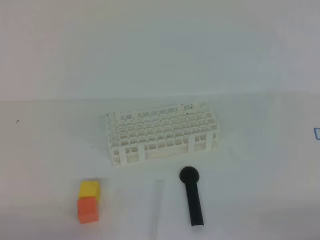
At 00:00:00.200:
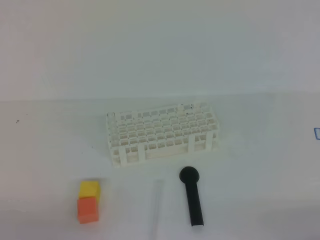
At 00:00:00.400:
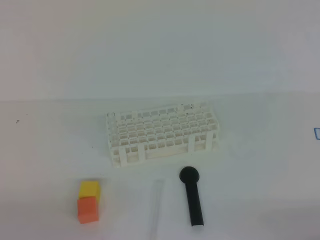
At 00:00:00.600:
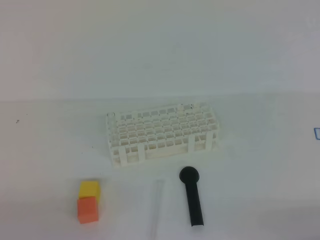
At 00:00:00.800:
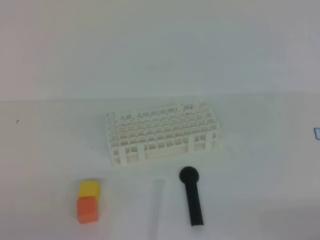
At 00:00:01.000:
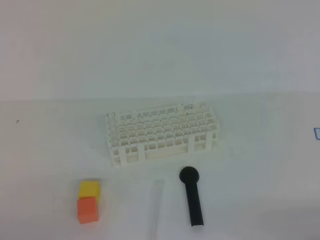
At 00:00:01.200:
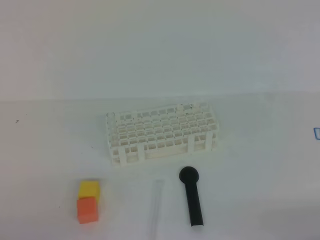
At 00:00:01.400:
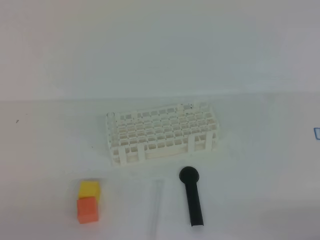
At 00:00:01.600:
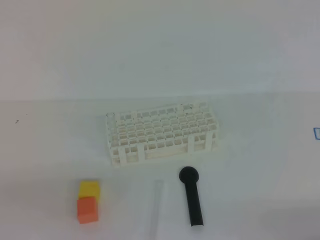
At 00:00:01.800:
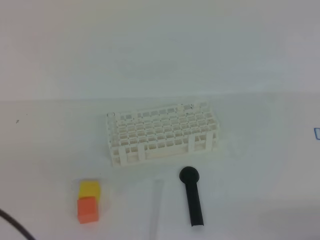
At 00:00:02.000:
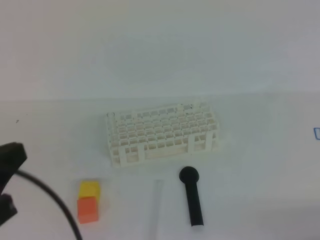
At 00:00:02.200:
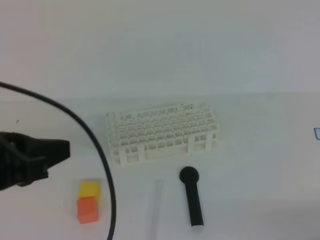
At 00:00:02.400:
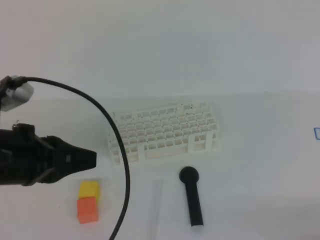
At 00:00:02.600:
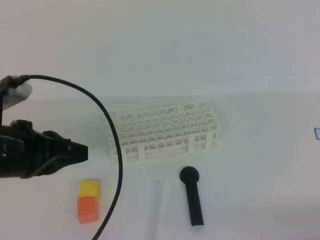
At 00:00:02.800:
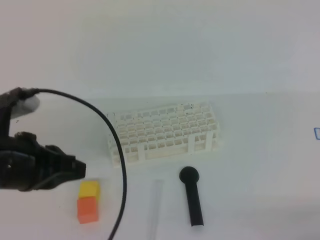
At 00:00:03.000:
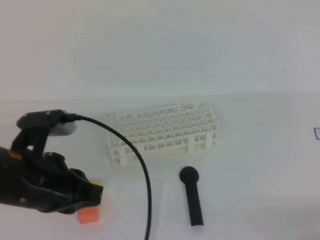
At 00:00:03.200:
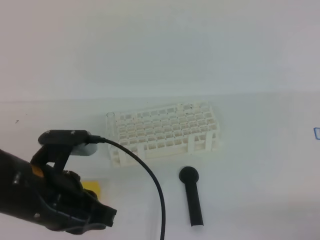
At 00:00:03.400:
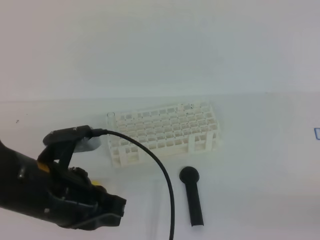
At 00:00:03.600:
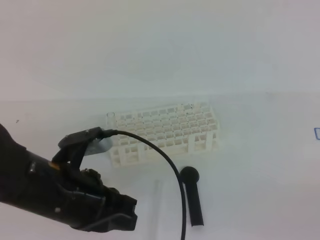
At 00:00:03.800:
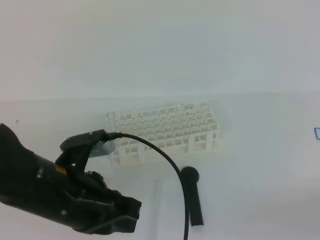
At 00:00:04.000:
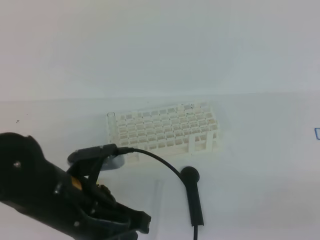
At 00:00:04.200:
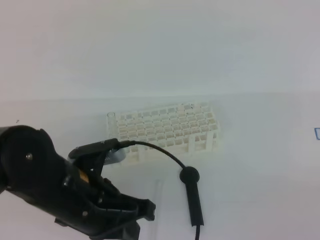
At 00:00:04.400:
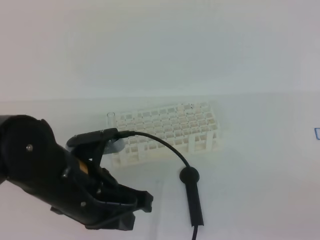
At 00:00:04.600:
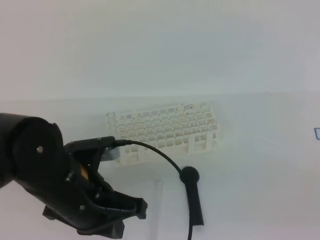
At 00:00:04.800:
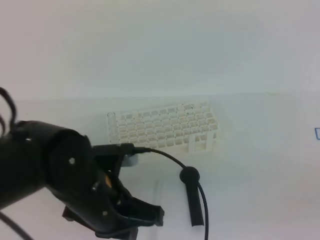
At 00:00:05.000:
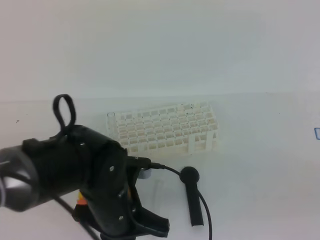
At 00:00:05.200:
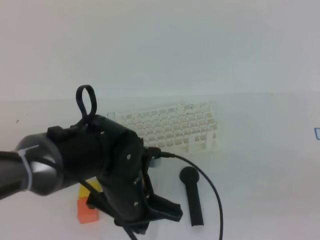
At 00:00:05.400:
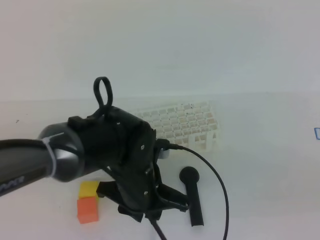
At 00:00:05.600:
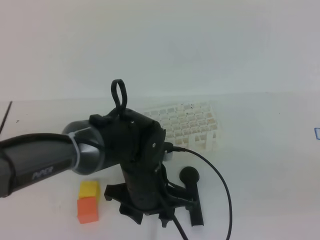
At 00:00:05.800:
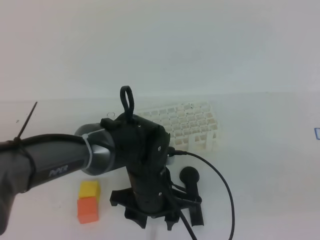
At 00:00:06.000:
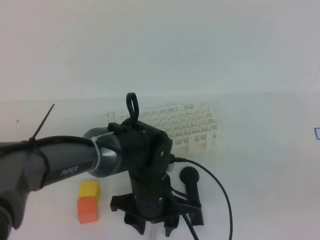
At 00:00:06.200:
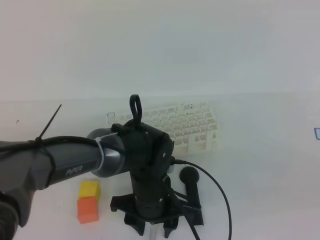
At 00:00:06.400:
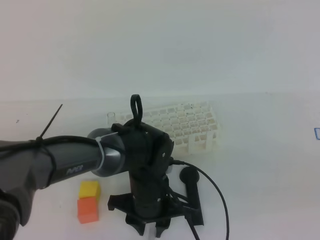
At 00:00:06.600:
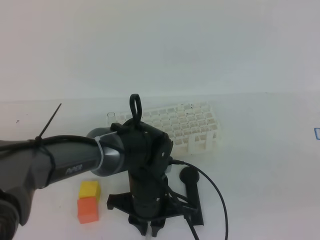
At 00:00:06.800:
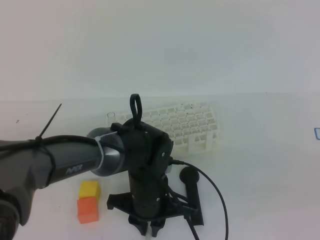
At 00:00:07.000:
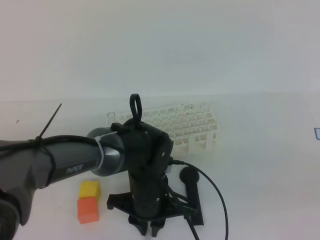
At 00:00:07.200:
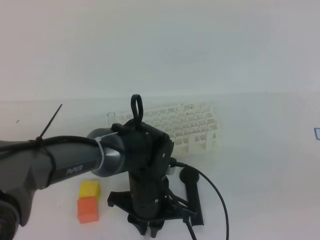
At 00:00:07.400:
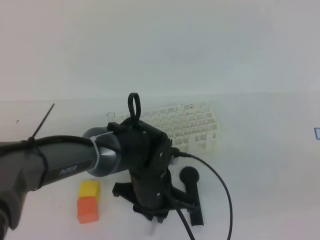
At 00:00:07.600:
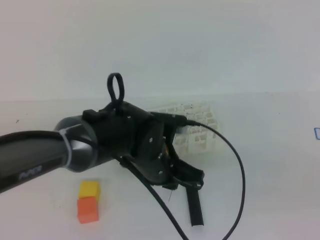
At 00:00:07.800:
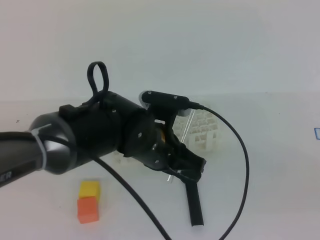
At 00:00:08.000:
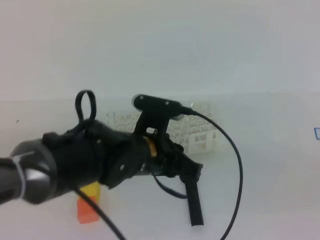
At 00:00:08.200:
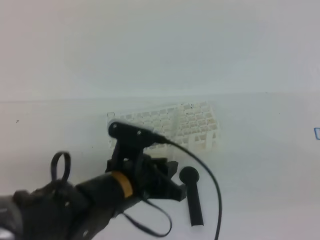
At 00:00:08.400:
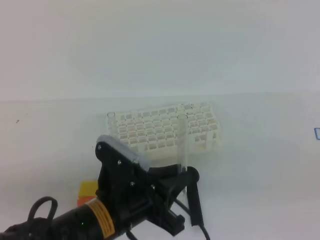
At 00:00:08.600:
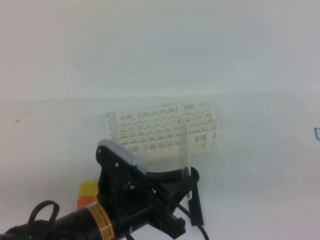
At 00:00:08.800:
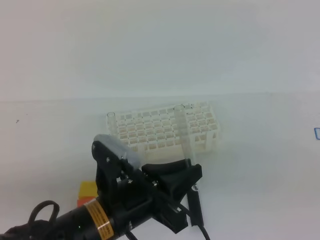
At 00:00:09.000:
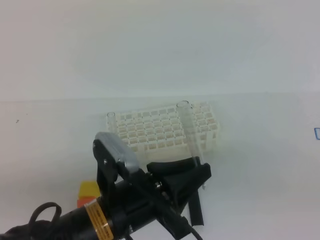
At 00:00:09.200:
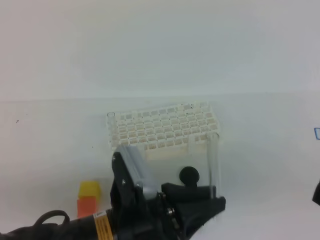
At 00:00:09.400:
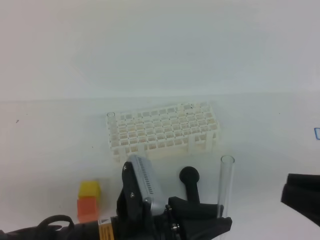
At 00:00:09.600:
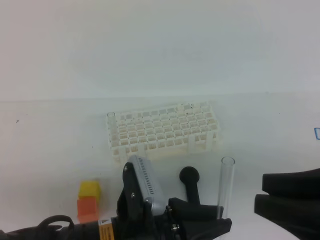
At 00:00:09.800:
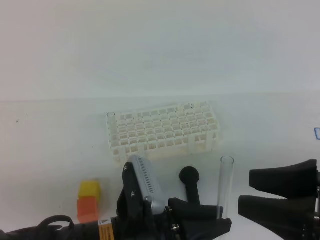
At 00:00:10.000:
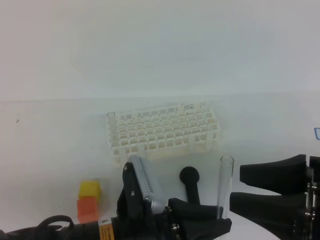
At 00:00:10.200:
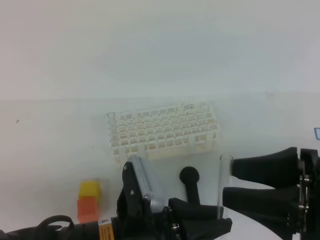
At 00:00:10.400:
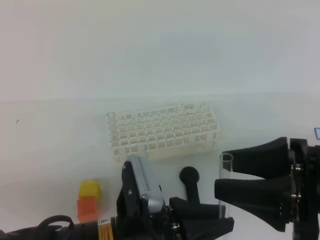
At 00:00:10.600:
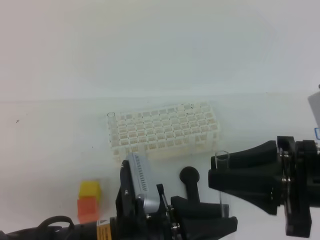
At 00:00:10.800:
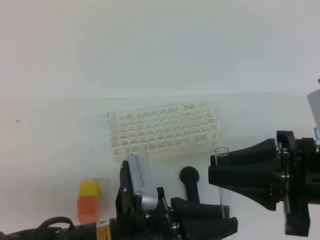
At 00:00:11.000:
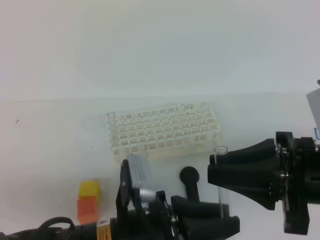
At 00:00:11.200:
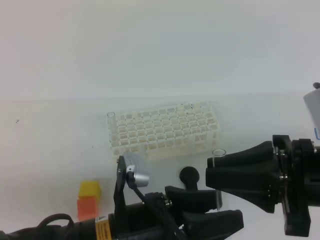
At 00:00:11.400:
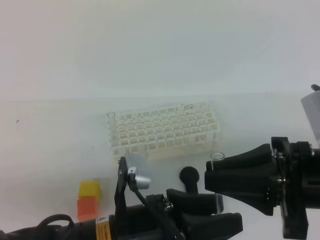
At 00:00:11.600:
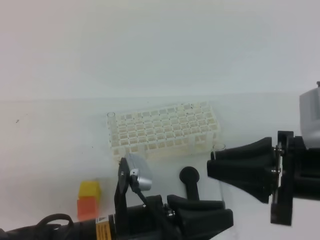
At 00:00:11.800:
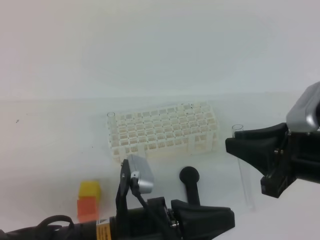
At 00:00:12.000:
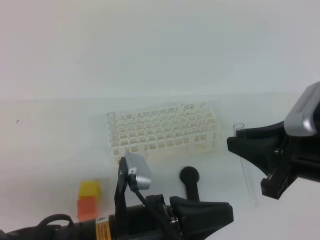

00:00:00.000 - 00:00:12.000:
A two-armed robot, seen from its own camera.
00:00:01.600 - 00:00:03.000: The left gripper shifts about 15 cm forward and to the right.
00:00:03.000 - 00:00:04.400: The left gripper heads to the right, covering approximately 5 cm; the right gripper is displaced upward by about 15 cm.
00:00:04.400 - 00:00:06.000: The right gripper is displaced forward by some 5 cm, while the left gripper shifts some 15 cm downward, to the right and forward, and opens.
00:00:06.000 - 00:00:07.600: The left gripper closes up.
00:00:07.600 - 00:00:09.000: The left gripper heads backward, covering roughly 10 cm.
00:00:09.000 - 00:00:10.400: The right gripper heads forward and to the left, covering approximately 10 cm, and opens.
00:00:10.400 - 00:00:12.000: The left gripper opens and closes again; the right gripper moves some 5 cm, and closes its fingers.

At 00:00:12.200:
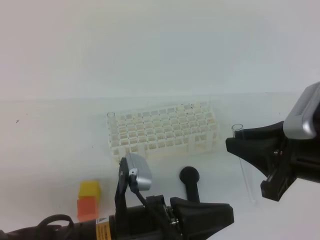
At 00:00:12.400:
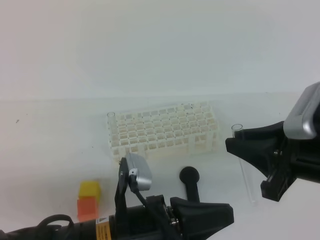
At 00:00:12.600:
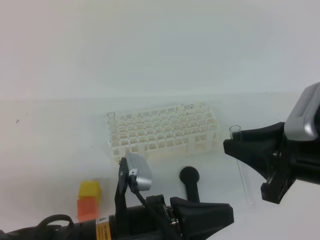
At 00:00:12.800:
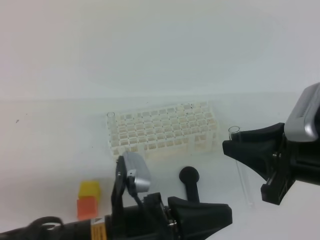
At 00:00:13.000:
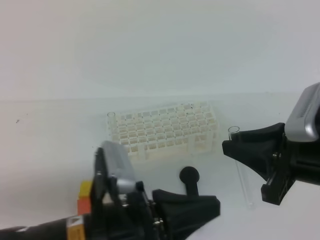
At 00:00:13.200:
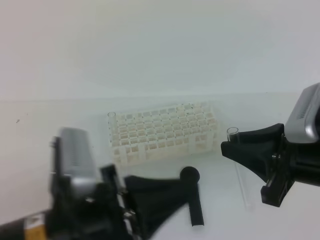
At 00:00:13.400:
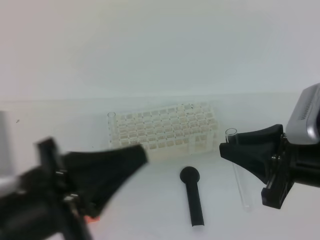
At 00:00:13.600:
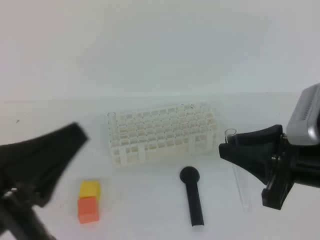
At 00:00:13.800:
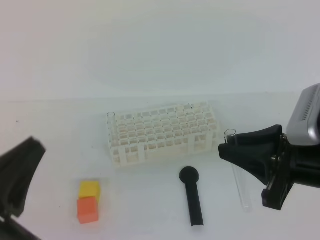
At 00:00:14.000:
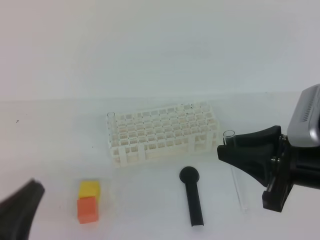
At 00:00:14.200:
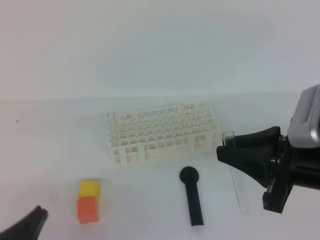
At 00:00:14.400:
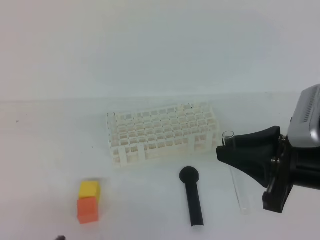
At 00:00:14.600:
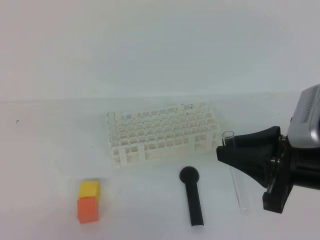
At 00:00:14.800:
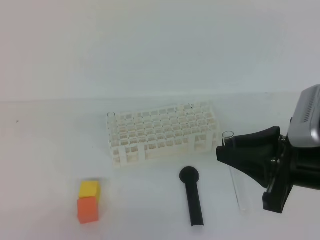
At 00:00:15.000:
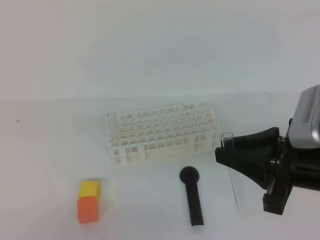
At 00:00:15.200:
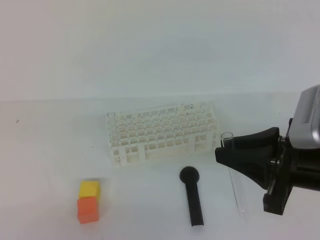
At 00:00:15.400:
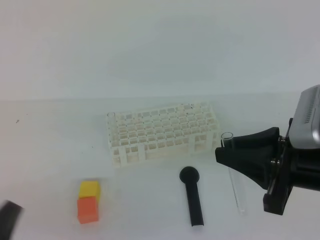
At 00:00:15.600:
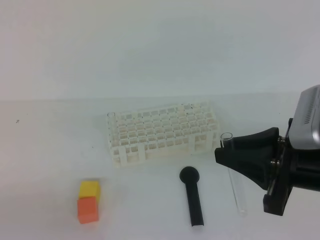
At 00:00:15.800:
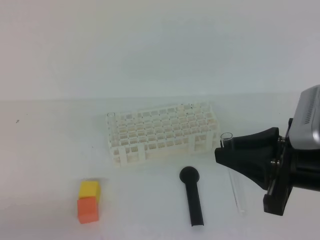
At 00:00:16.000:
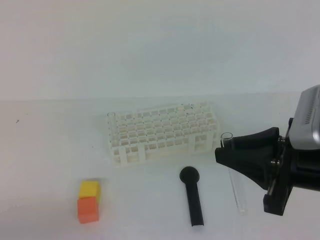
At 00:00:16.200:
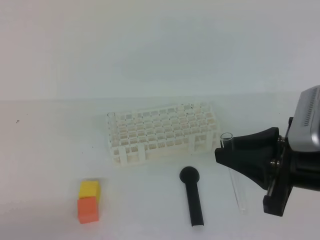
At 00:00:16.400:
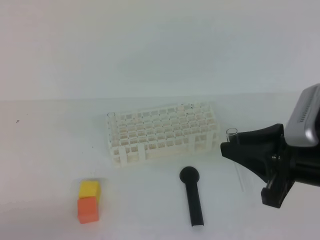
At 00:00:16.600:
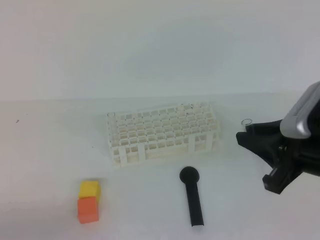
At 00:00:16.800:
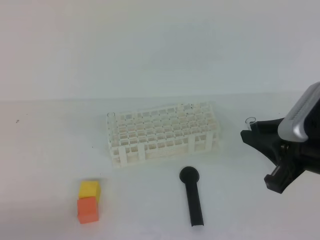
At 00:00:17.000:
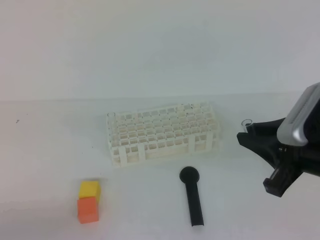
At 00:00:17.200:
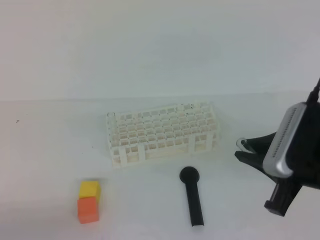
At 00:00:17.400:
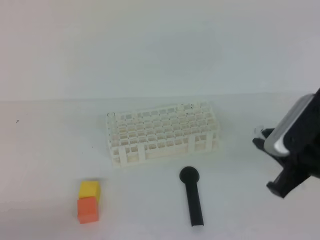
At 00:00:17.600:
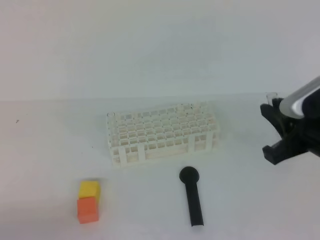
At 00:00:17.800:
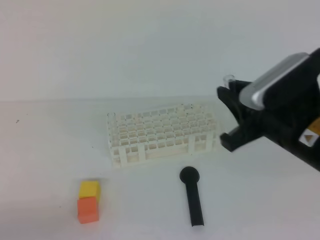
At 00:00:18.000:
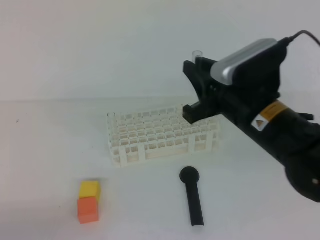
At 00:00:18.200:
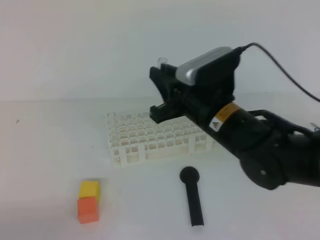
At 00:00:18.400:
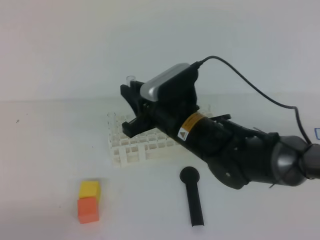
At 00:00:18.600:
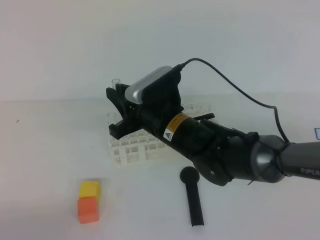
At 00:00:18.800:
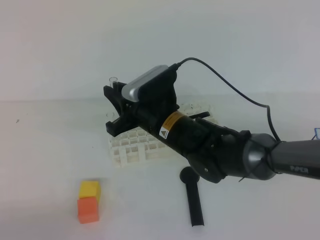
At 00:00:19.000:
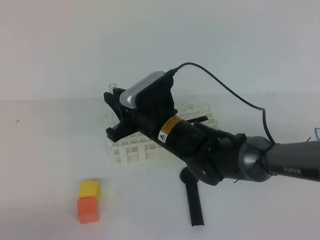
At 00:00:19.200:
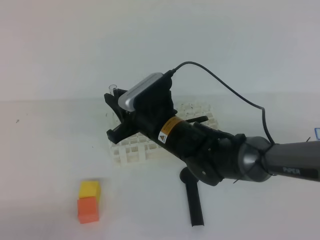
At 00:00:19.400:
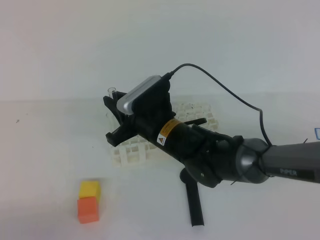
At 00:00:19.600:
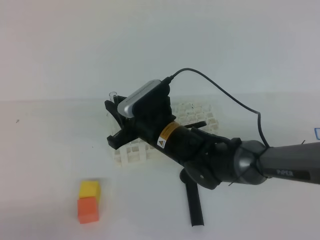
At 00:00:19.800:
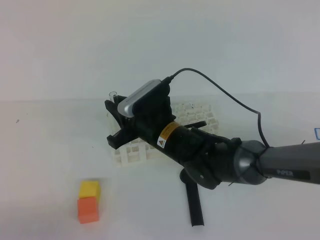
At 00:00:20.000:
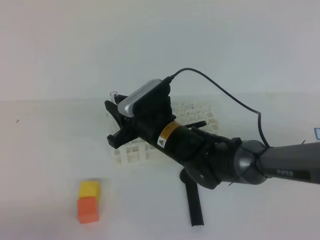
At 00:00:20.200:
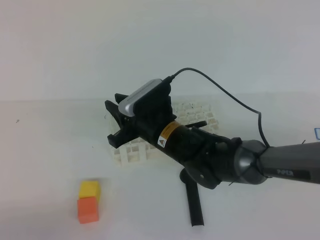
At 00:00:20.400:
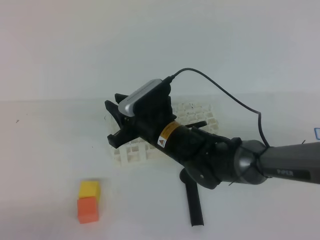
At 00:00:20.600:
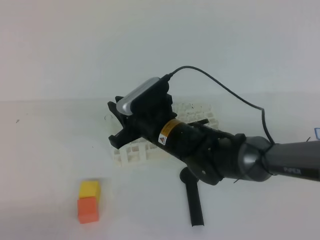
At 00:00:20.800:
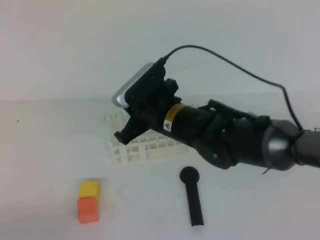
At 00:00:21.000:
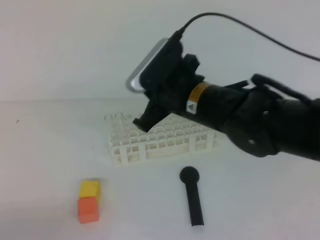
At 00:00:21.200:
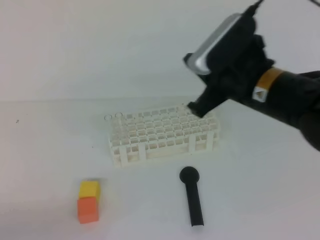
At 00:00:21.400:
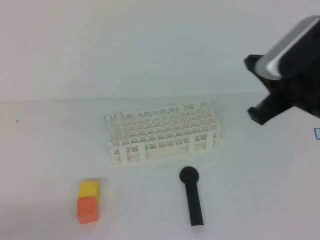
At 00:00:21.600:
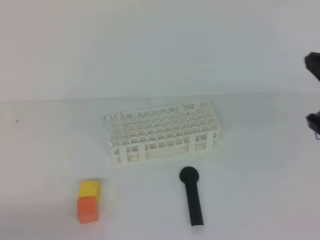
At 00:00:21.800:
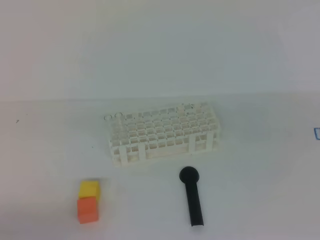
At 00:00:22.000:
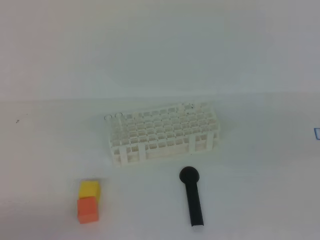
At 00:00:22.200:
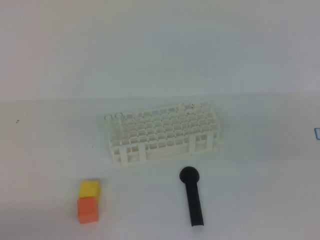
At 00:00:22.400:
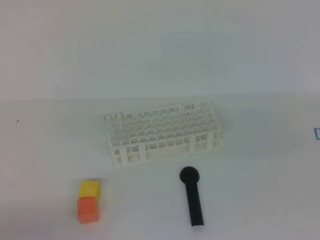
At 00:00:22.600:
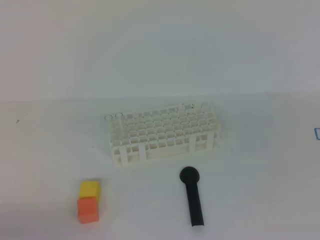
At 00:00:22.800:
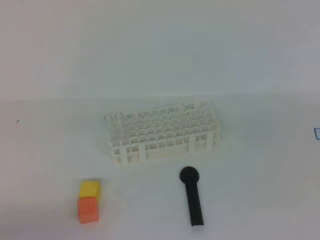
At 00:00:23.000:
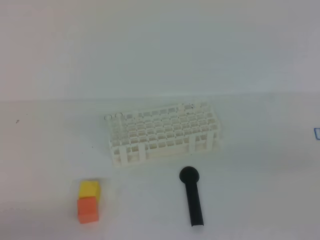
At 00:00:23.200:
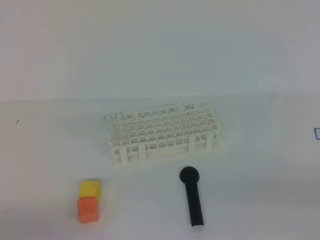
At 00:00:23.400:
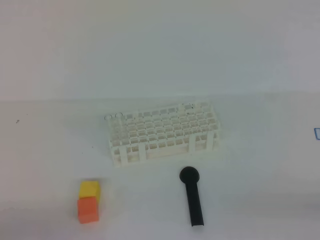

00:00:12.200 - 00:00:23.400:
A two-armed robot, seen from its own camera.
00:00:12.200 - 00:00:13.800: The left gripper shifts some 15 cm to the left and upward.
00:00:13.800 - 00:00:15.400: The left gripper shifts about 5 cm downward.
00:00:15.400 - 00:00:17.000: The left gripper shifts some 5 cm to the left.
00:00:17.000 - 00:00:18.600: The right gripper shifts about 25 cm to the left and forward.
00:00:18.600 - 00:00:20.200: The grippers make only small movements.
00:00:20.200 - 00:00:21.800: The right gripper moves to the right, backward and upward, approximately 35 cm, and closes its fingers.
